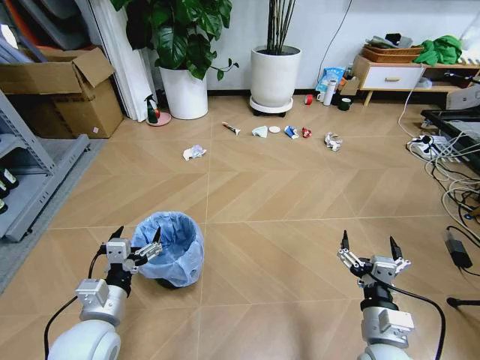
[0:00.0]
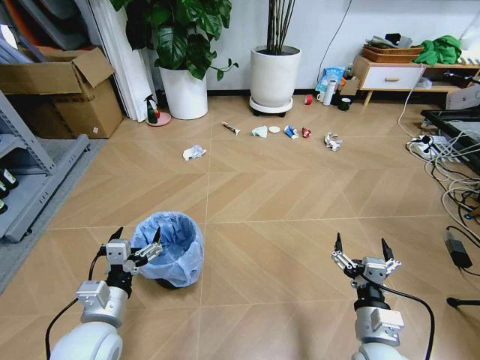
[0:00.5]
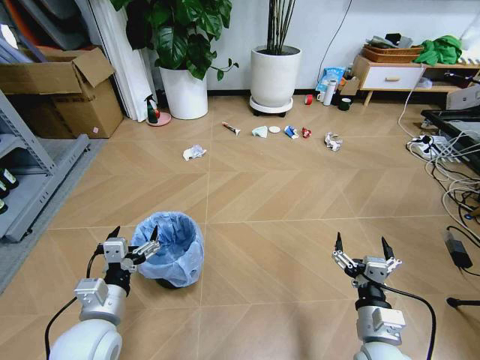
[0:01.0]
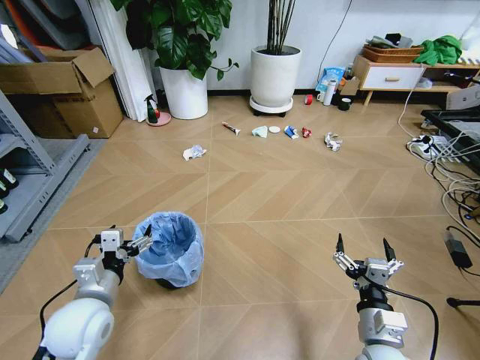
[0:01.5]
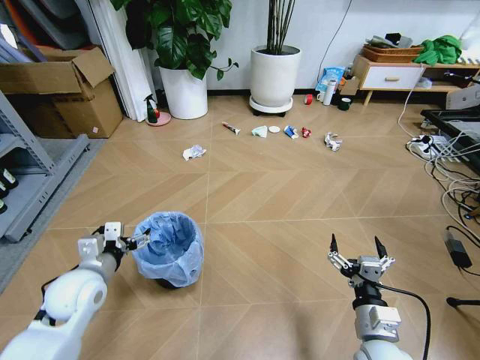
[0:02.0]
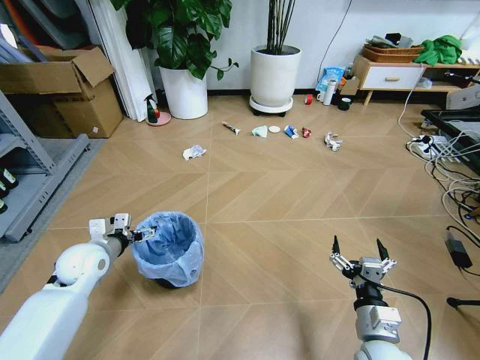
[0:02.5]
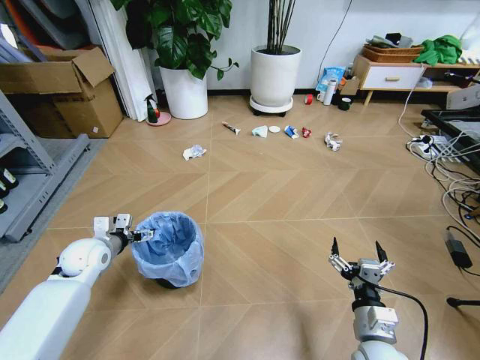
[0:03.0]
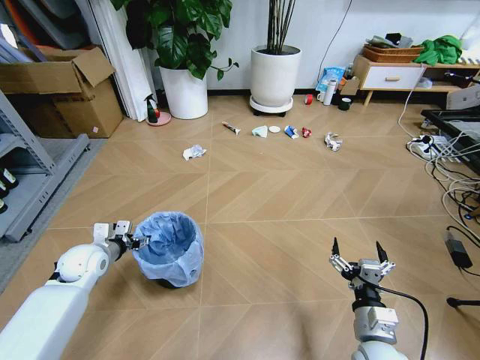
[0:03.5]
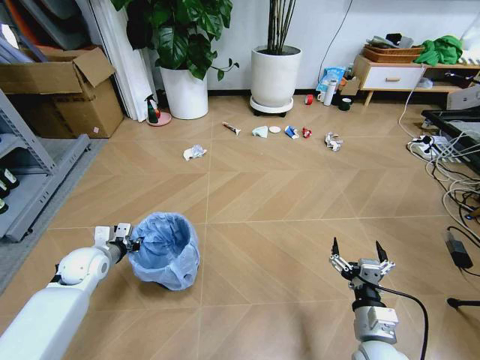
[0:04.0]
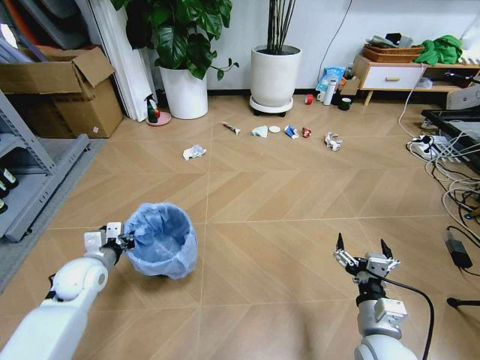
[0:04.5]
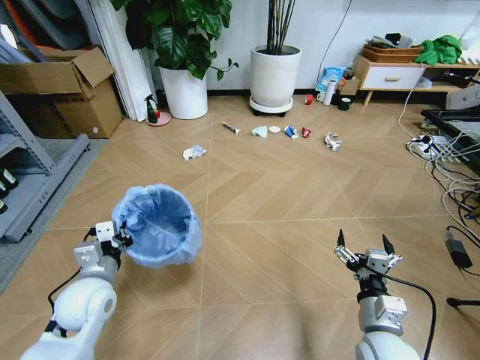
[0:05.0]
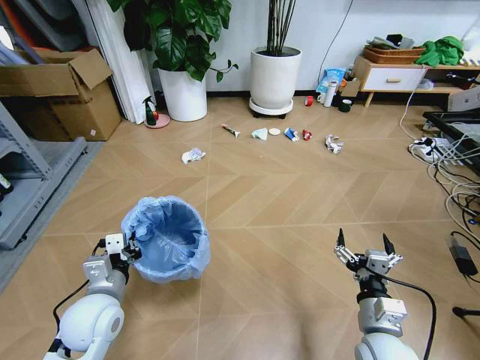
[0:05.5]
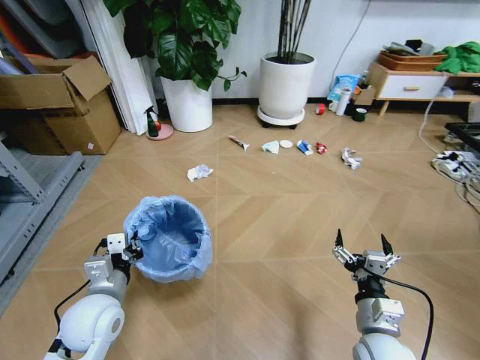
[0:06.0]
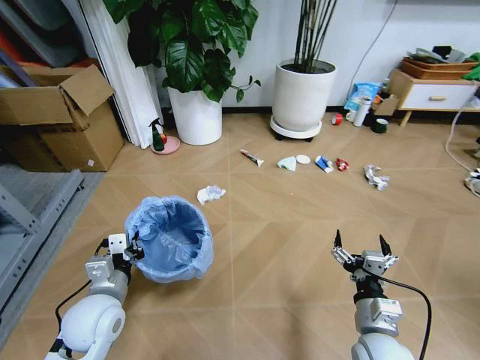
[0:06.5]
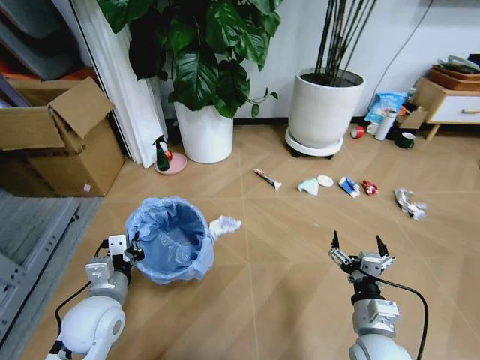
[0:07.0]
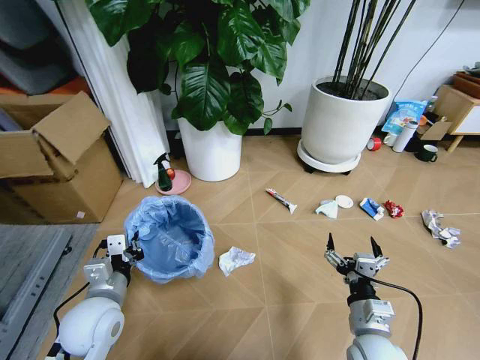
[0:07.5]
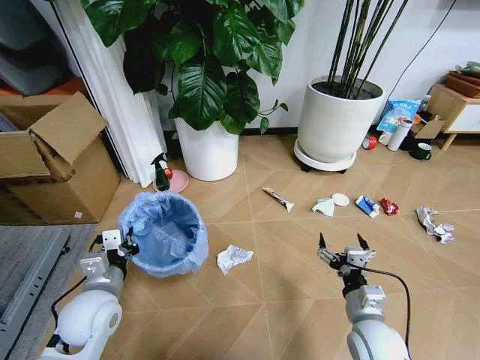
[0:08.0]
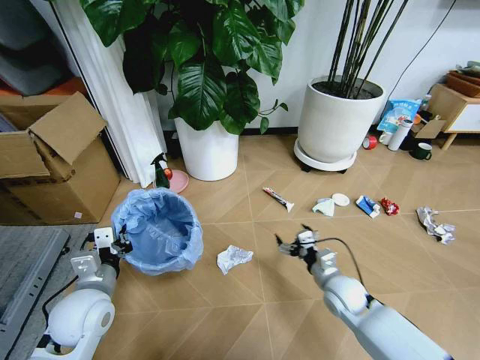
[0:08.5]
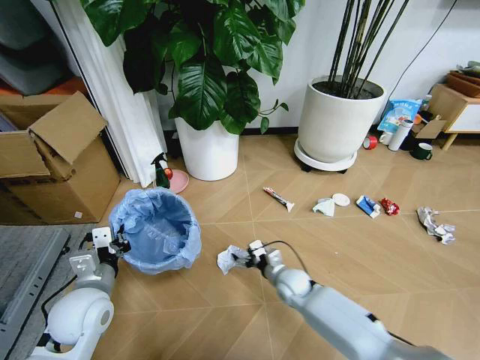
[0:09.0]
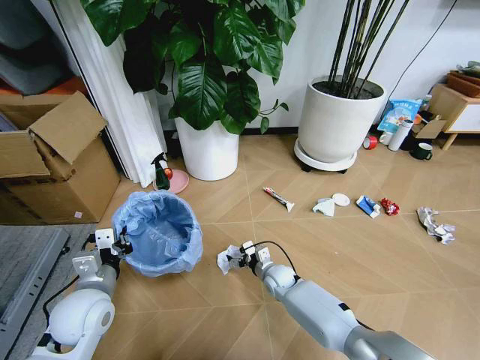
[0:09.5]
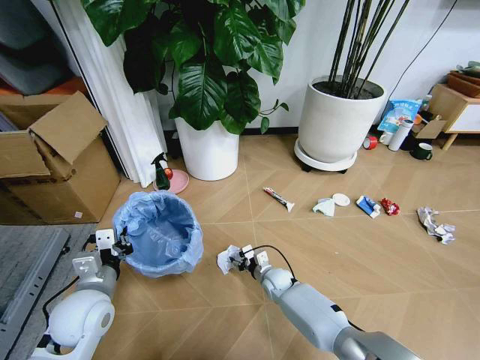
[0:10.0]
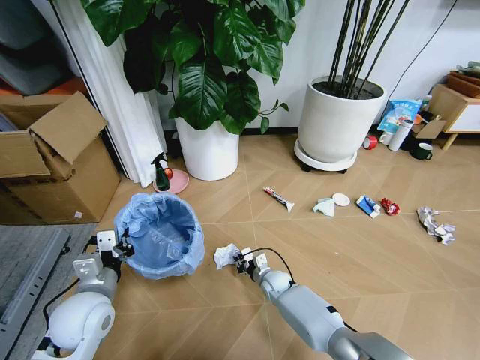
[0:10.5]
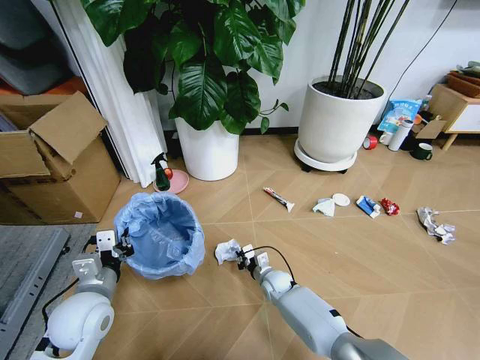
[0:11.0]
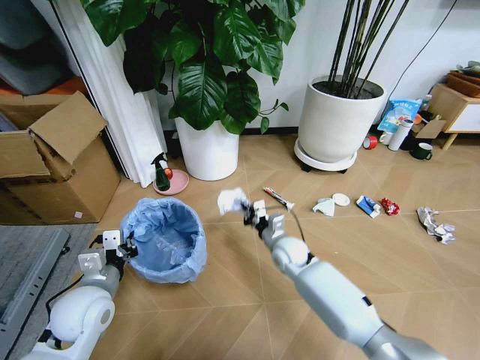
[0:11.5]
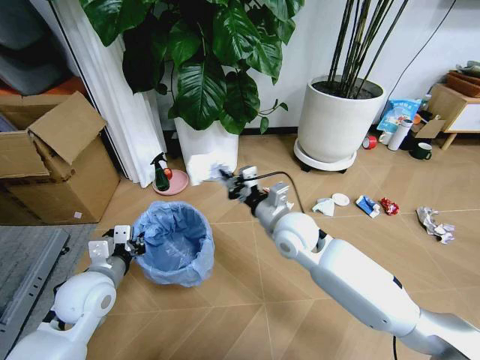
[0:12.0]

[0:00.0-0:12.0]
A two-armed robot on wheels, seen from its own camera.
Task of the whole recording: Pick up the trash bin and place the garbage on the floor into it.
2.0 to 4.0 s: The left gripper goes approximately 15 cm forward, downward and to the left, and closes.
4.0 to 6.0 s: The left gripper shifts about 15 cm backward and to the right.
8.0 to 10.0 s: The right gripper shifts some 30 cm forward, downward and to the left.
10.0 to 12.0 s: The right gripper moves upward, some 30 cm, and closes its fingers.

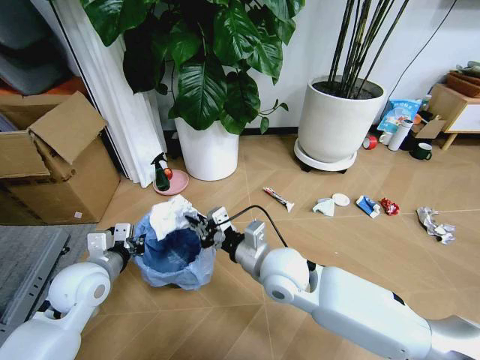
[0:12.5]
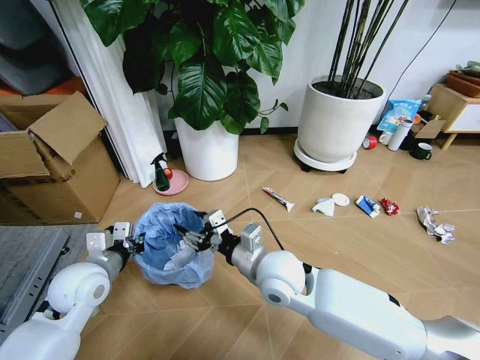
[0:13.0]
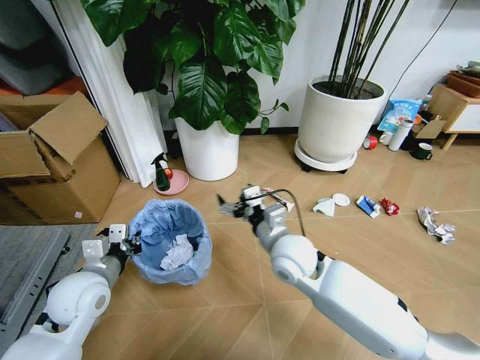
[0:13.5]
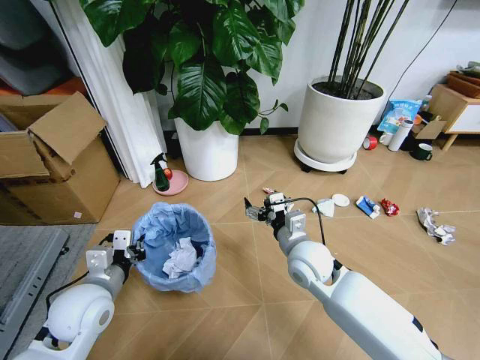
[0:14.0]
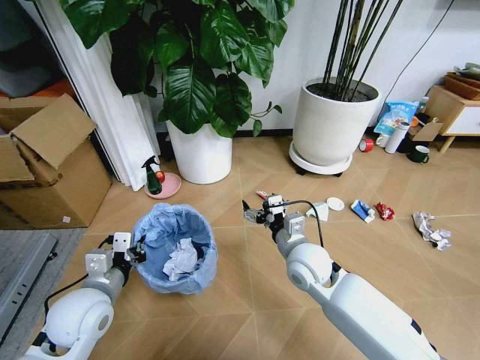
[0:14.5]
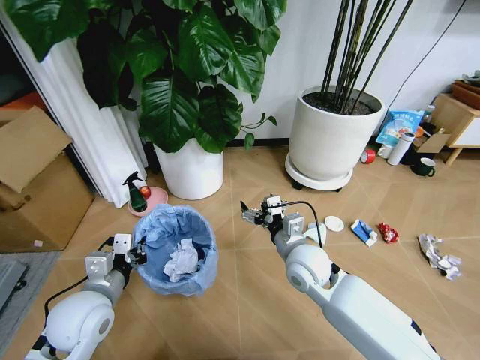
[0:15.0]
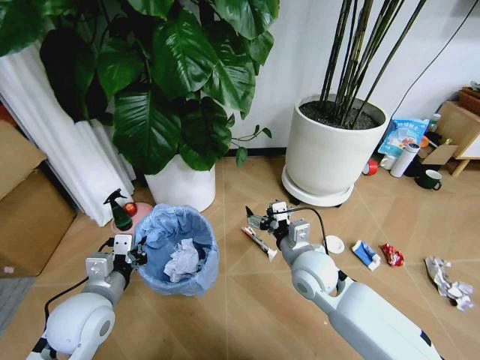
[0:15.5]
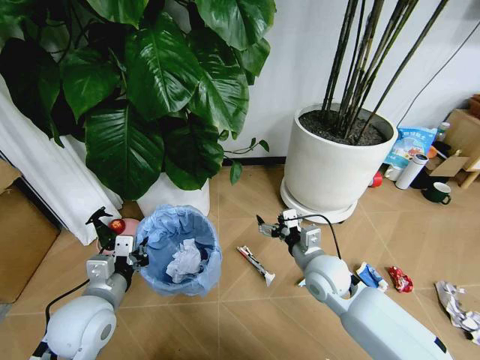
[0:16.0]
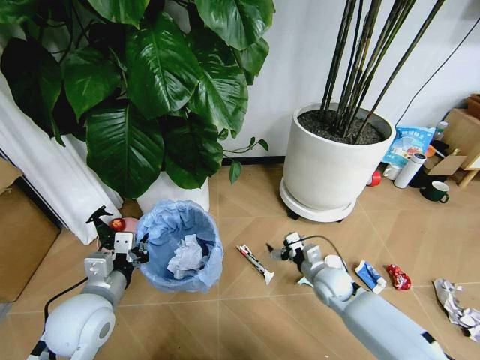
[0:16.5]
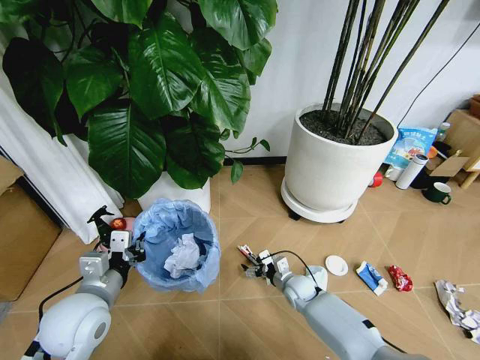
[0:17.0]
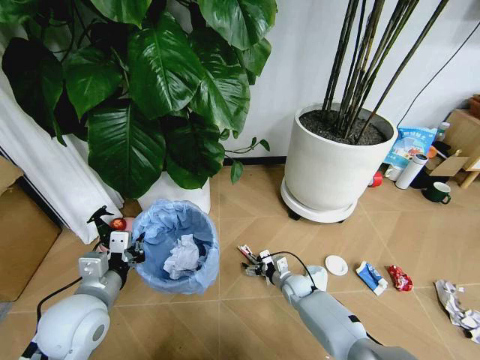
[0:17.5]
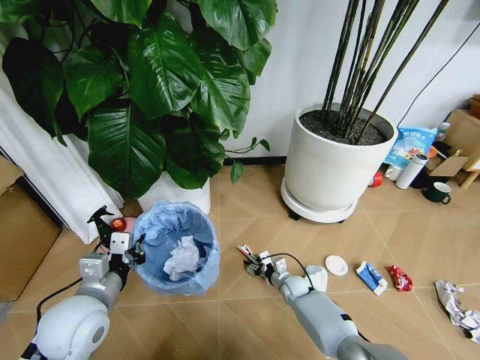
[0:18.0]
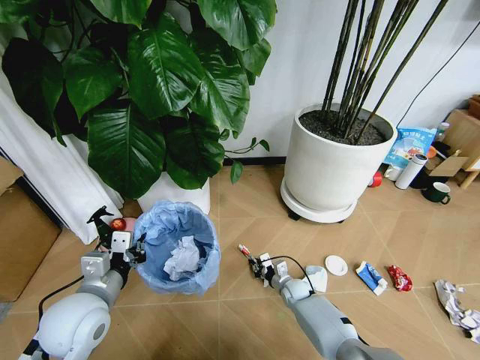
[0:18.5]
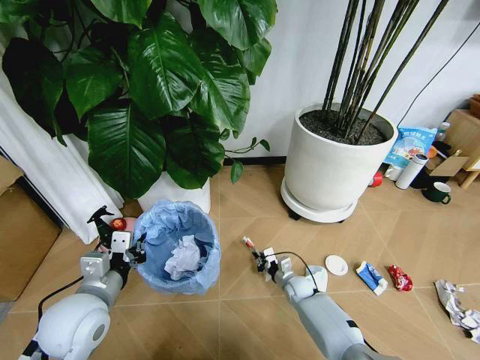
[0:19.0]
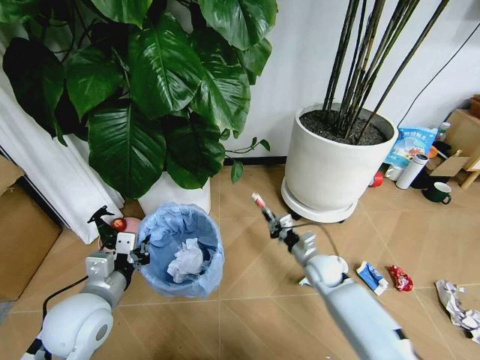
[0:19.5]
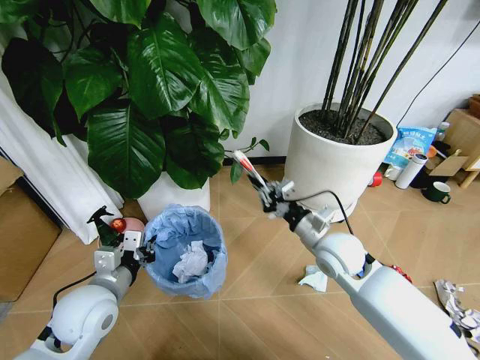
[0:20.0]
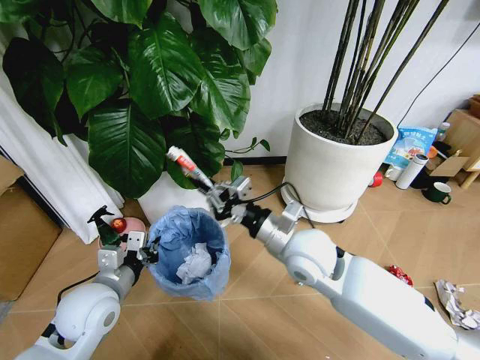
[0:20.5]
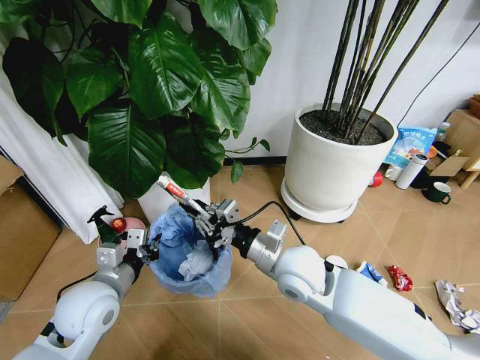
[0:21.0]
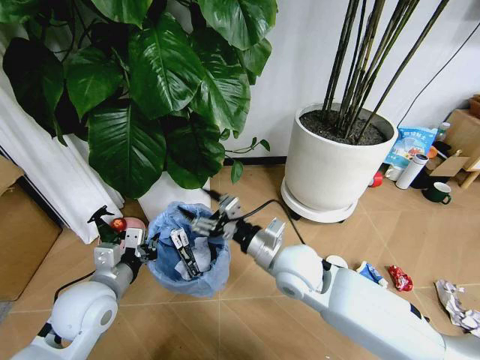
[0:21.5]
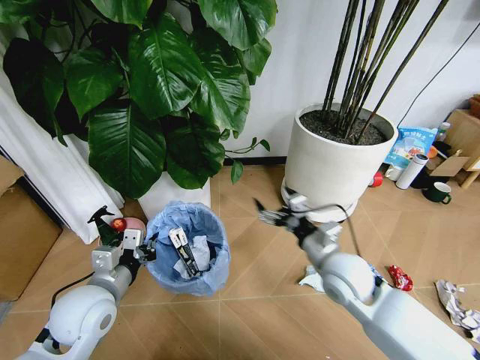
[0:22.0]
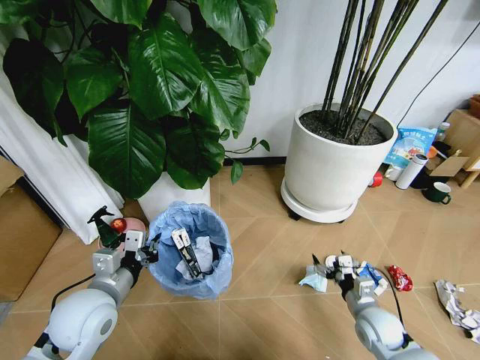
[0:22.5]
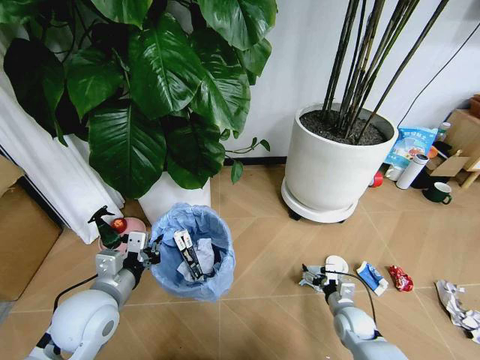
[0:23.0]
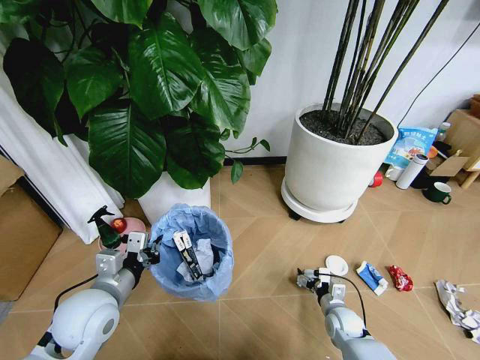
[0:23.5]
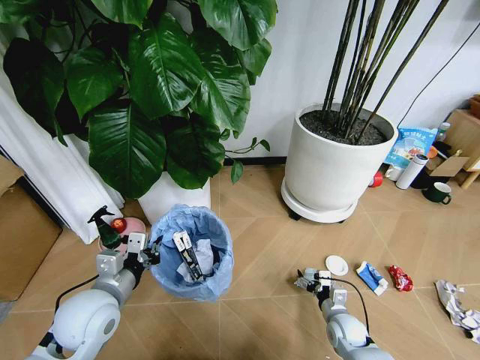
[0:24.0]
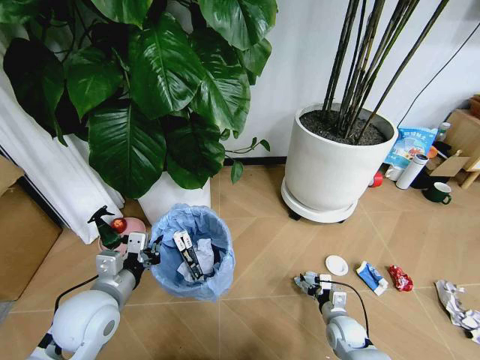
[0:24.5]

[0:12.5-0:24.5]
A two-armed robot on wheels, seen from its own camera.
Task of the whole recording: Pick up the trash bin and place the garbage on the floor into it.
12.5 to 14.5 s: The left gripper moves backward, approximately 5 cm; the right gripper travels to the right by some 5 cm, and opens.
14.5 to 16.5 s: The right gripper goes roughly 15 cm downward and to the right.
16.5 to 18.5 s: The right gripper shifts about 15 cm downward, and closes its fingers.
18.5 to 20.5 s: The right gripper moves upward, roughly 40 cm.
20.5 to 22.5 s: The right gripper travels downward and to the right by roughly 30 cm, and opens up.
22.5 to 24.5 s: The right gripper travels downward by roughly 10 cm.

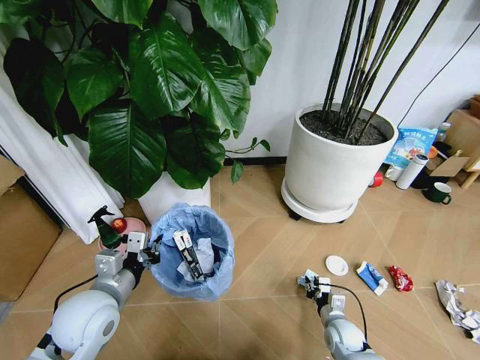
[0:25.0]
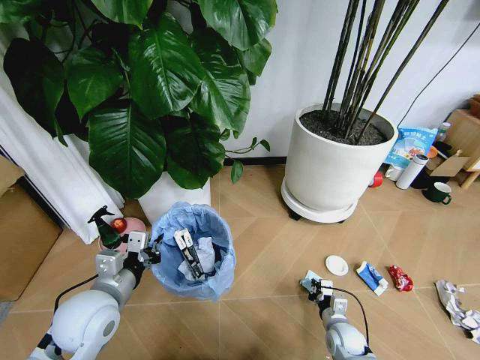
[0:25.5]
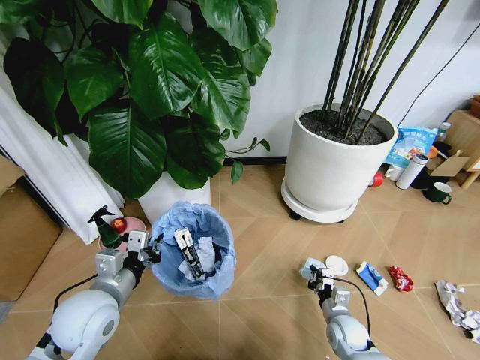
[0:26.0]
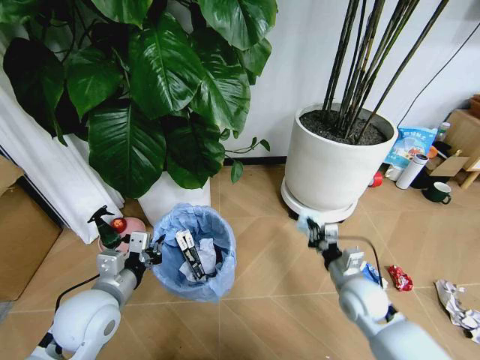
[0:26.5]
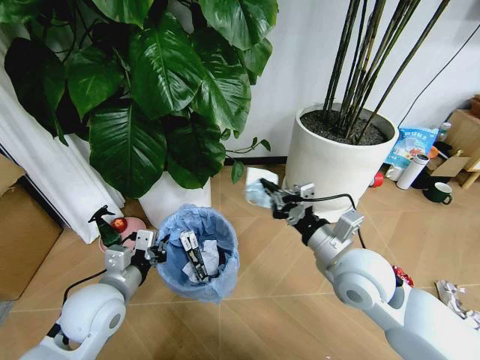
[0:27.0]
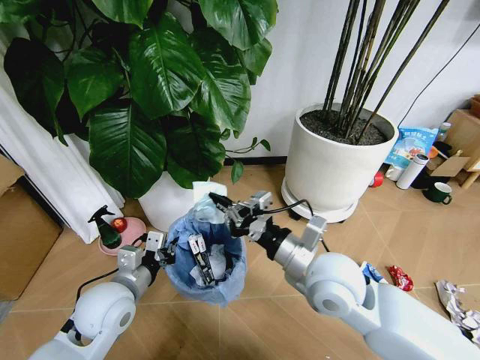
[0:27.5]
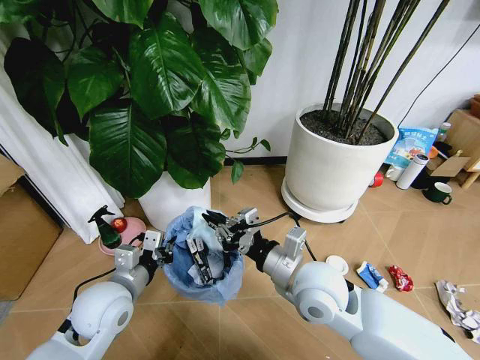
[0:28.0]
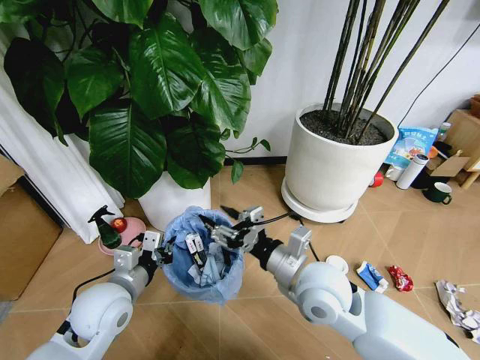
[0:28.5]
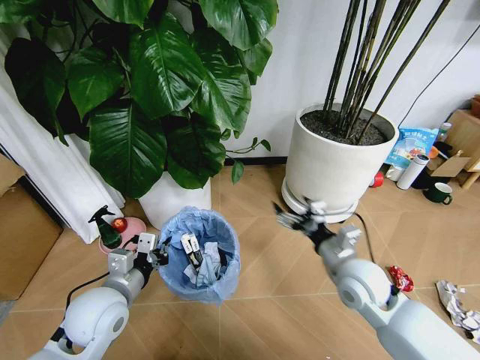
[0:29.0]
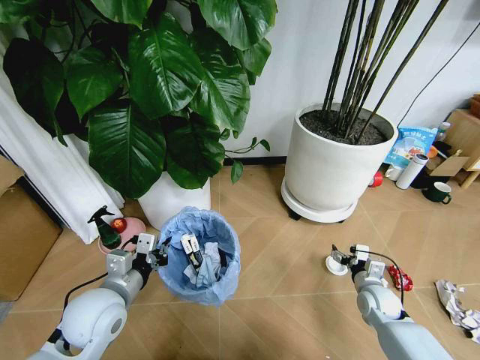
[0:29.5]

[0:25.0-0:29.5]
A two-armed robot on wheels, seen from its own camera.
Task of the whole recording: Pick up the trash bin and place the garbage on the floor into it.
25.0 to 27.0 s: The right gripper goes roughly 35 cm upward.
27.0 to 29.5 s: The right gripper travels downward and to the right by some 30 cm, and opens.
